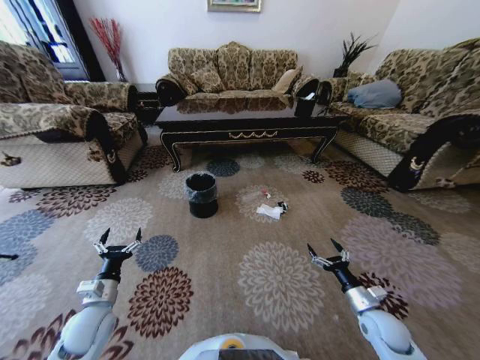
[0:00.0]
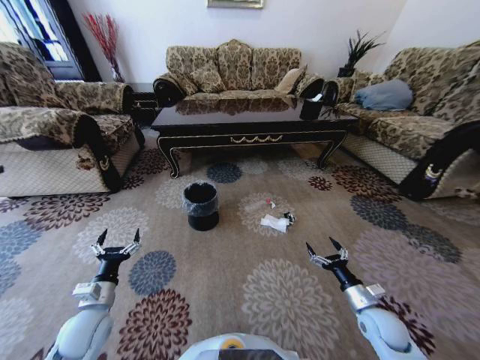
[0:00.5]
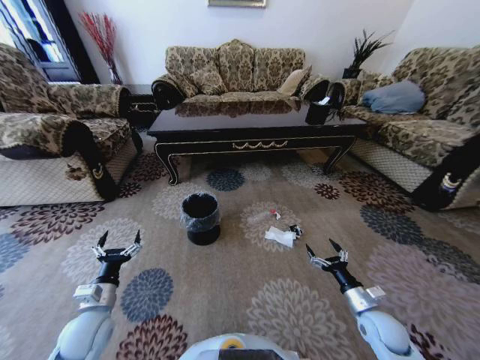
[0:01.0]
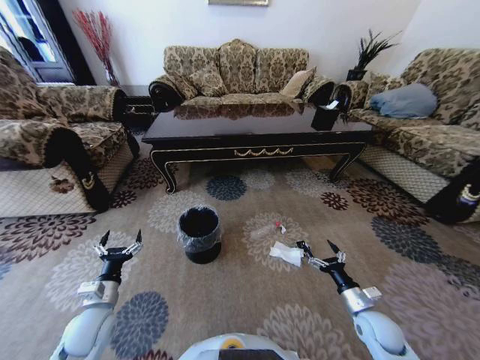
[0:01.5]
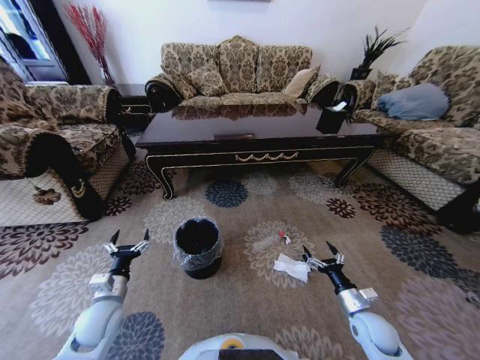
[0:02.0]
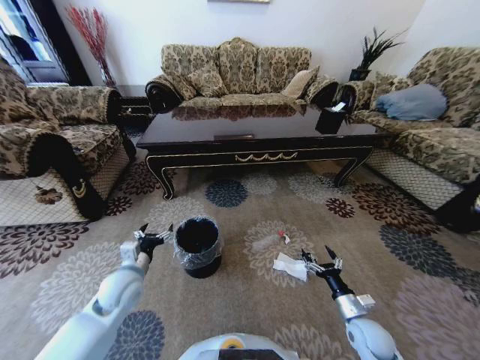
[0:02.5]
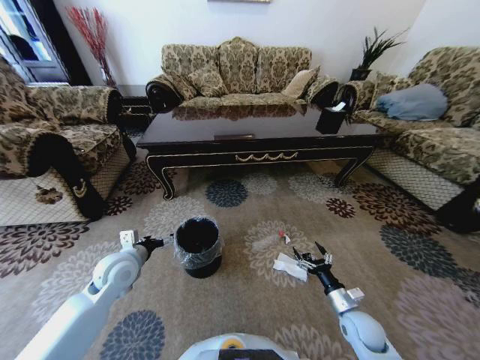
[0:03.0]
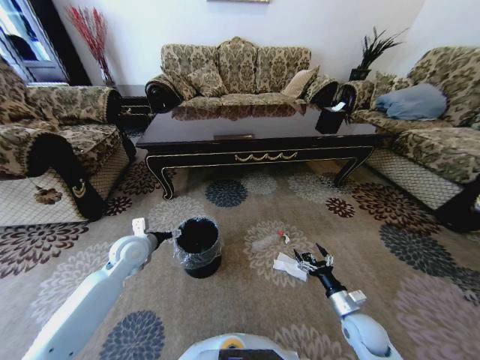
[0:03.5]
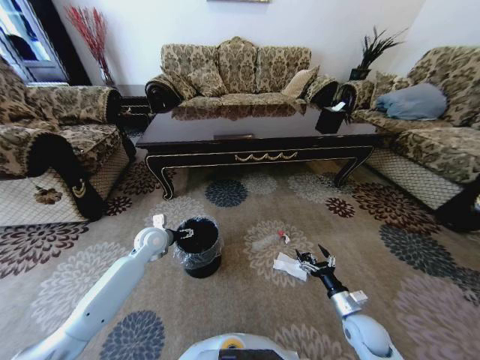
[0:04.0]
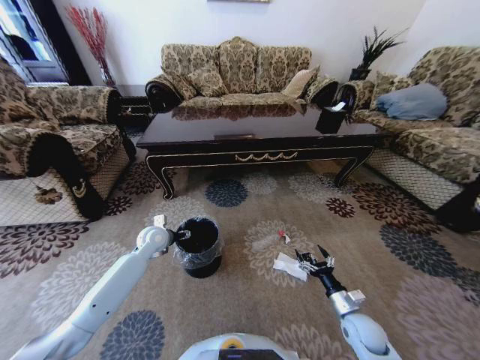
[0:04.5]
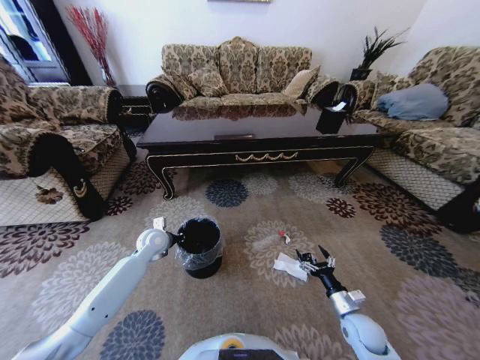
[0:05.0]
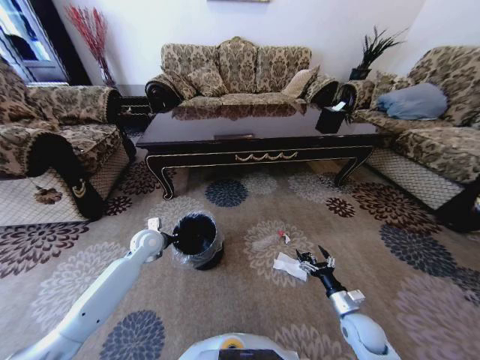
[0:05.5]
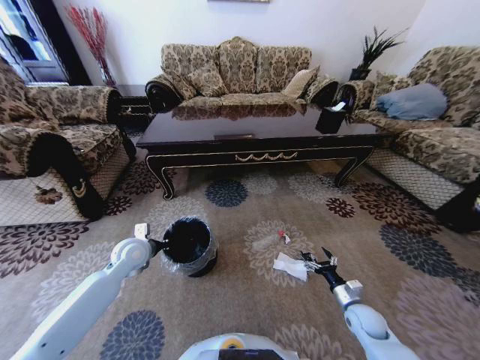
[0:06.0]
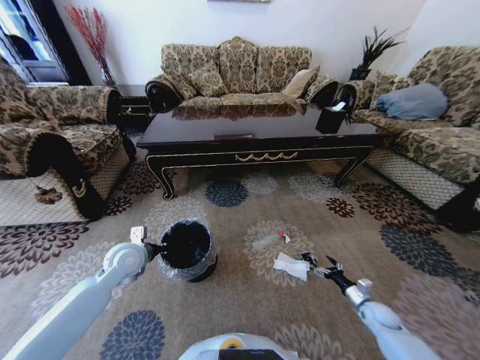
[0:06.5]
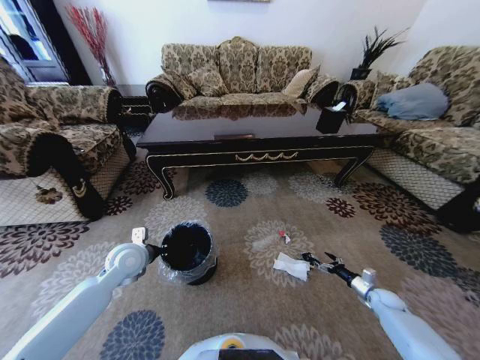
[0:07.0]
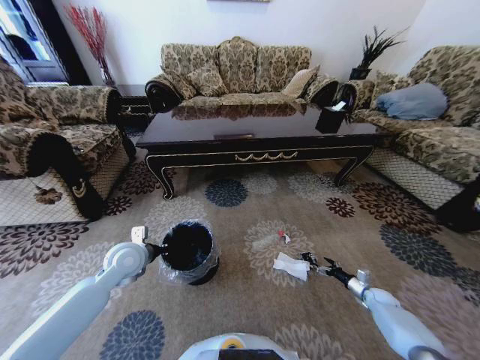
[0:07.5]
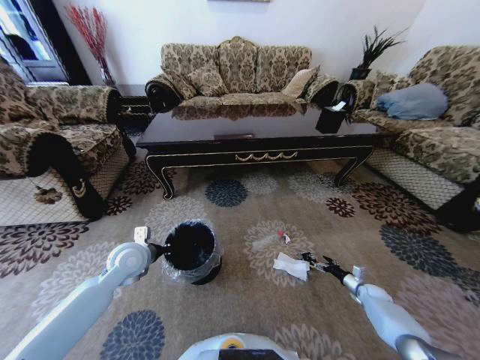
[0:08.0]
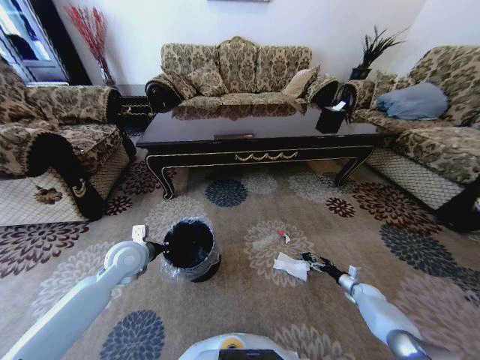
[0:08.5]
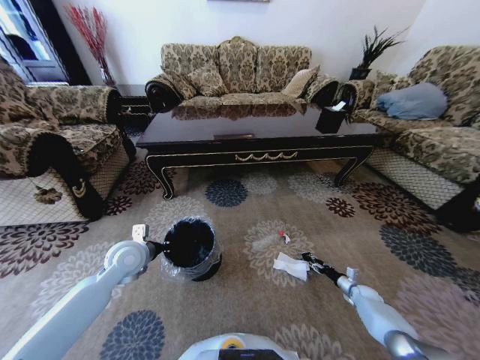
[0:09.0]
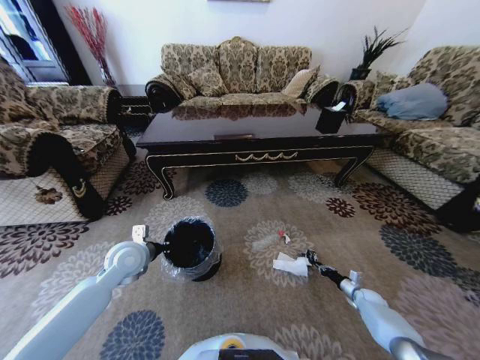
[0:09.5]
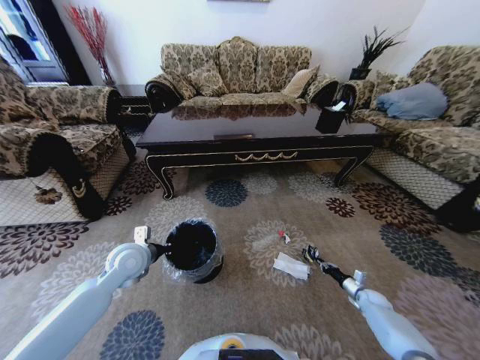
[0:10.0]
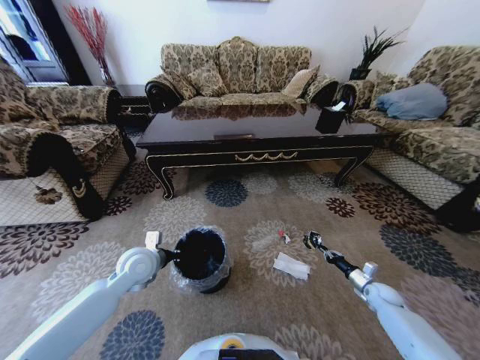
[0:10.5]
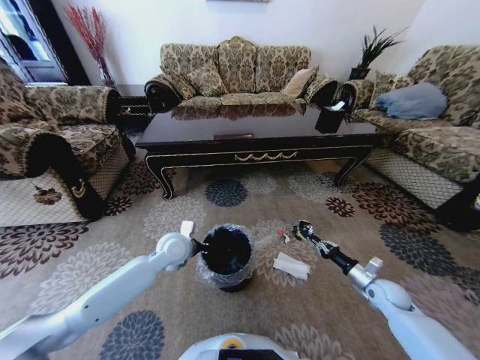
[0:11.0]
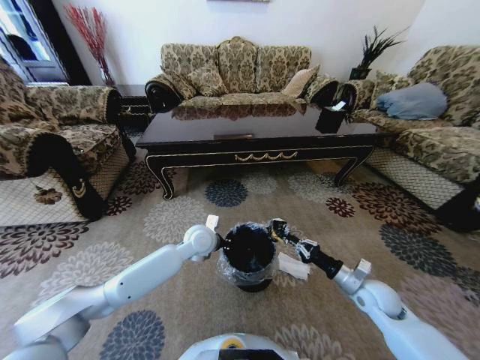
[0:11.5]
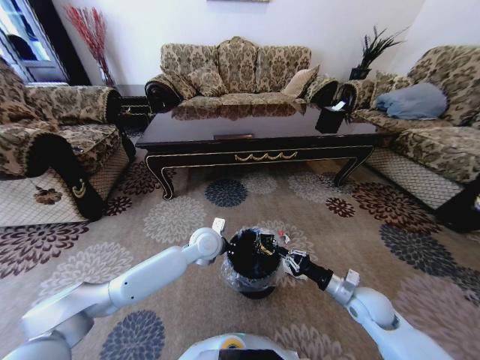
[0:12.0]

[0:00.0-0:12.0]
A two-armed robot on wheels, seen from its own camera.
Task of the whole recording: Move to the front of the table and pick up the trash from the floor, then place it into the trash bin.
0:02.0 to 0:04.0: The left gripper moves forward, about 20 cm.
0:04.0 to 0:06.0: The right gripper shifts by some 5 cm; the left gripper is displaced backward by some 5 cm, and closes up.
0:06.0 to 0:08.0: The right gripper travels to the right, forward and downward by roughly 20 cm.
0:08.0 to 0:10.0: The right gripper closes.
0:10.0 to 0:12.0: The left gripper moves to the right, roughly 20 cm. The right gripper shifts roughly 25 cm upward and to the left.

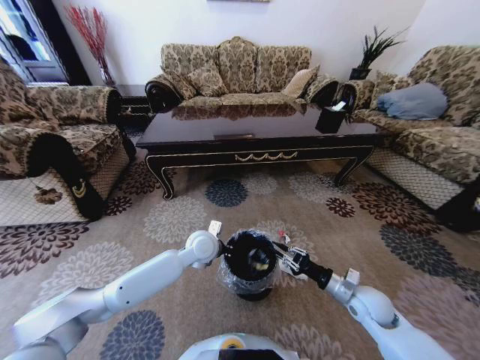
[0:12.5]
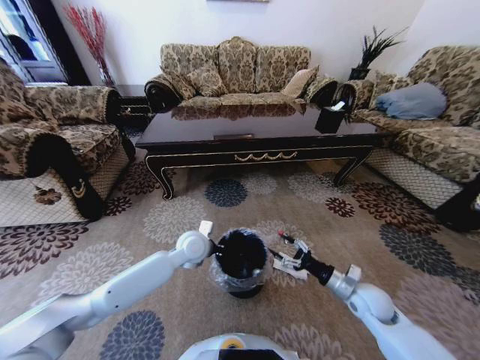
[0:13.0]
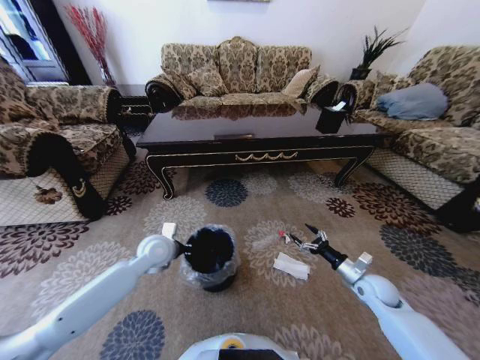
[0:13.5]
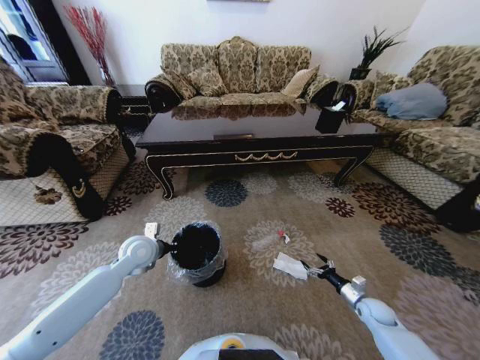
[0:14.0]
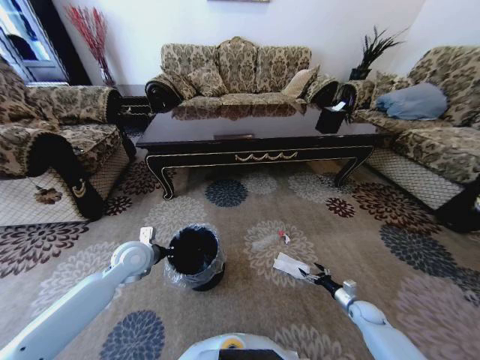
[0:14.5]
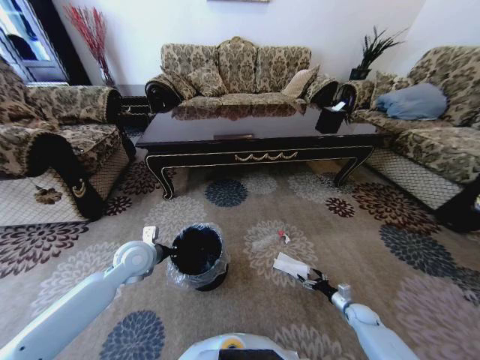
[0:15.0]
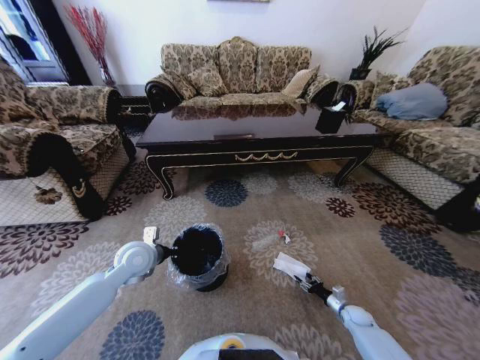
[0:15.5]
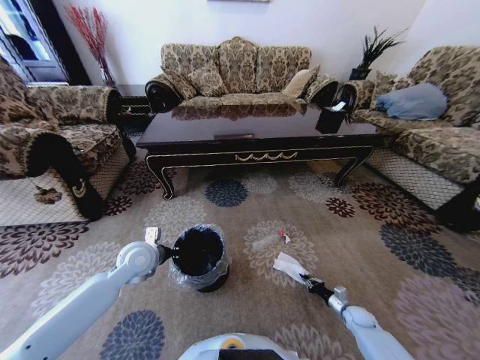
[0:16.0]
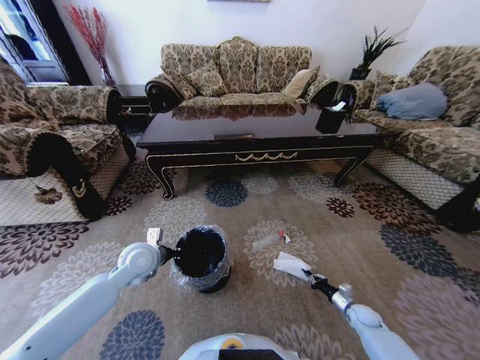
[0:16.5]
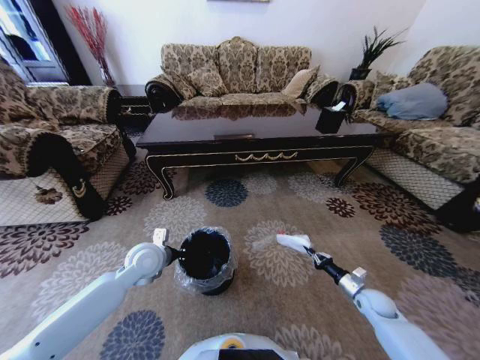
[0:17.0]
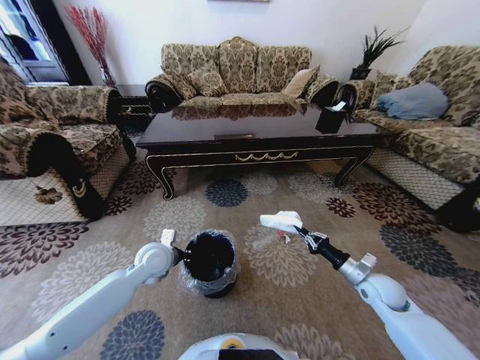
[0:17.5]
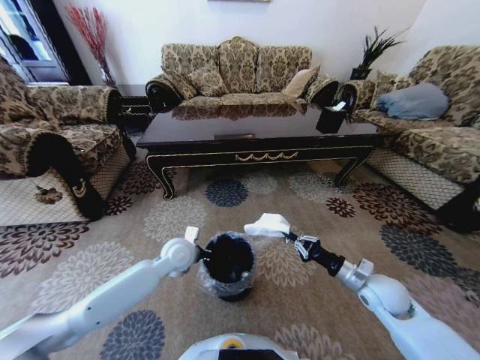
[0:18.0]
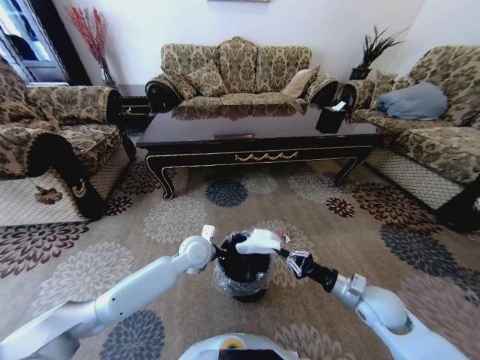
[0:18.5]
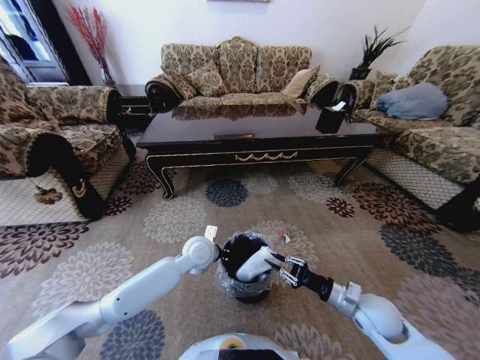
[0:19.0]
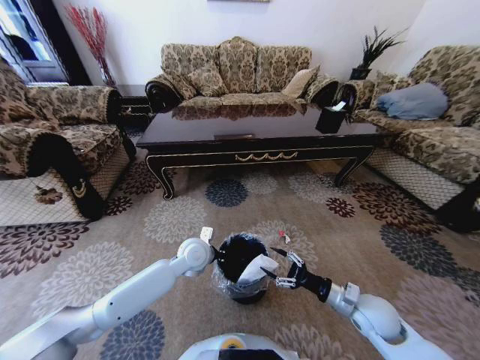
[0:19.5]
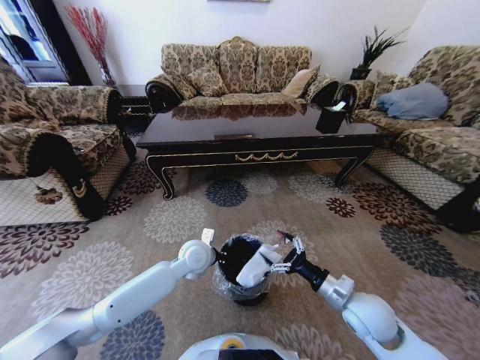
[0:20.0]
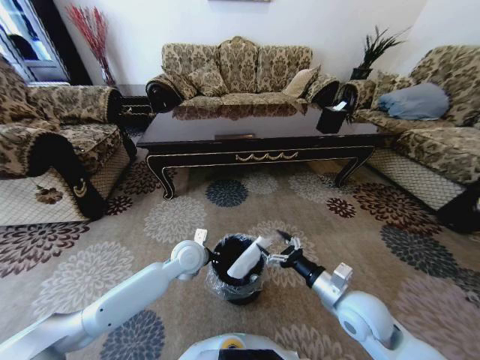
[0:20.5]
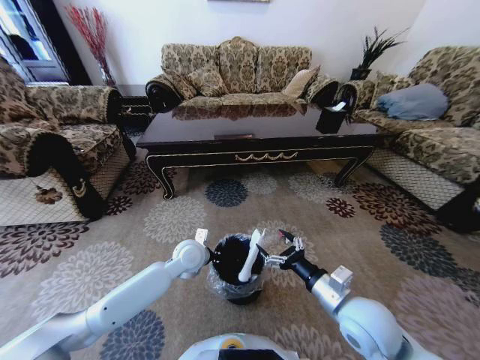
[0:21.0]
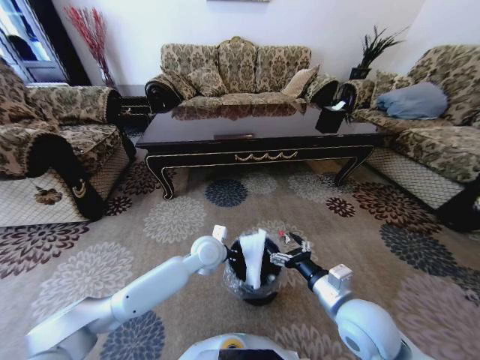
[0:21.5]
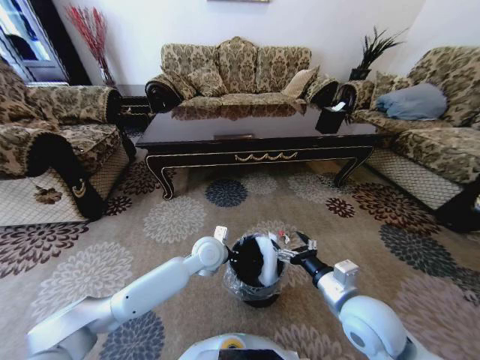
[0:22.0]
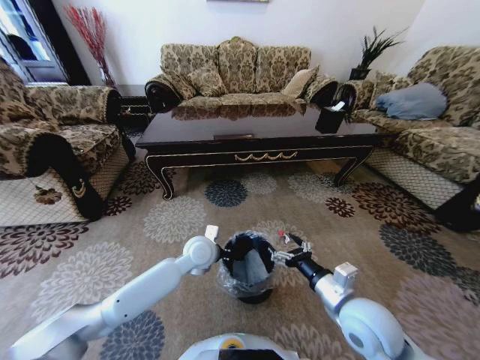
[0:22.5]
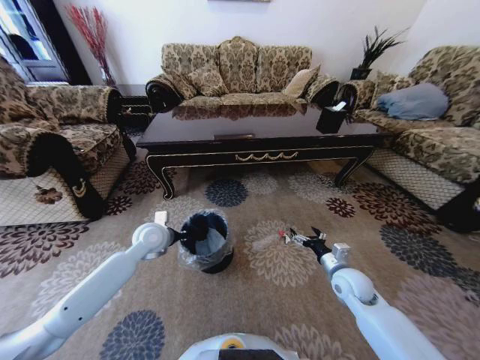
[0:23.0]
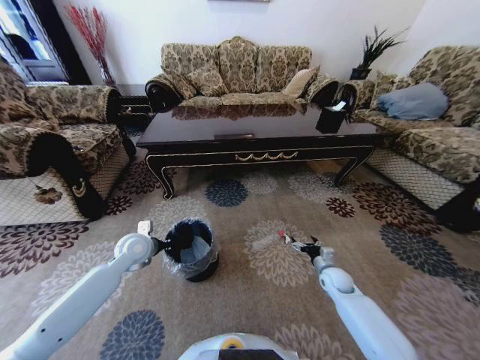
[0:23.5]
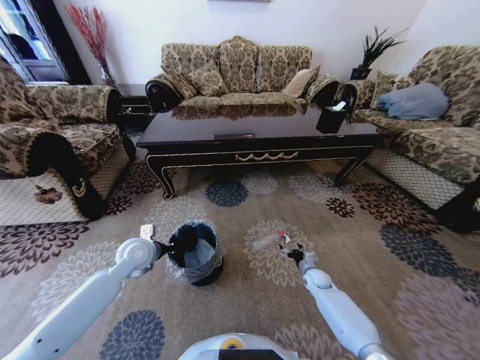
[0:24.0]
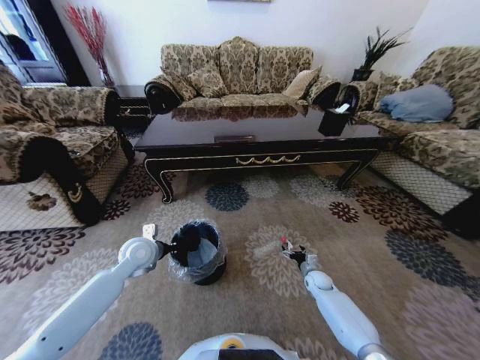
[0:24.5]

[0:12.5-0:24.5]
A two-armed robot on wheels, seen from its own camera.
Task of the whole recording: Move to the front of the table and pick up the trash from the floor, then place it into the trash bin.
0:12.5 to 0:14.5: The left gripper shifts roughly 20 cm to the left, while the right gripper moves downward and to the right, roughly 25 cm, and opens.
0:14.5 to 0:16.5: The right gripper closes up.
0:16.5 to 0:18.5: The left gripper travels to the right by approximately 15 cm. The right gripper goes some 25 cm upward and to the left.
0:18.5 to 0:20.5: The right gripper is displaced to the left and upward by about 10 cm, and opens.
0:22.5 to 0:24.5: The right gripper moves downward and forward, approximately 35 cm; the left gripper shifts approximately 15 cm to the left.

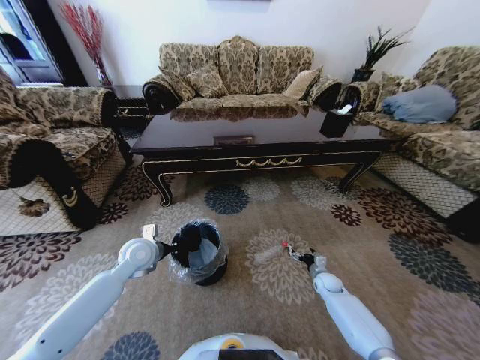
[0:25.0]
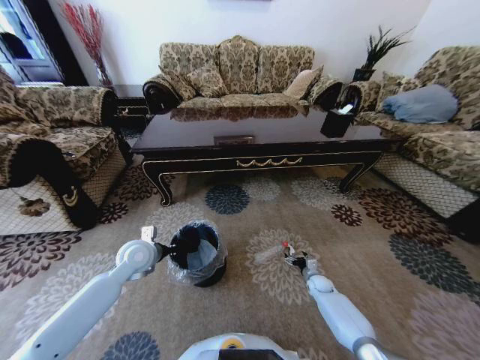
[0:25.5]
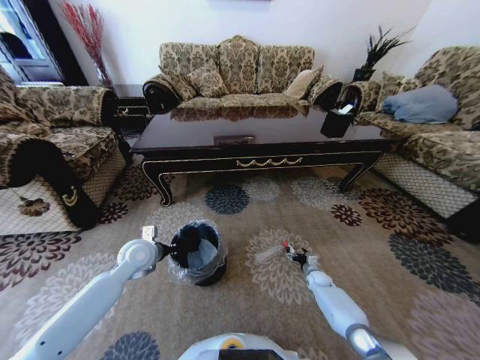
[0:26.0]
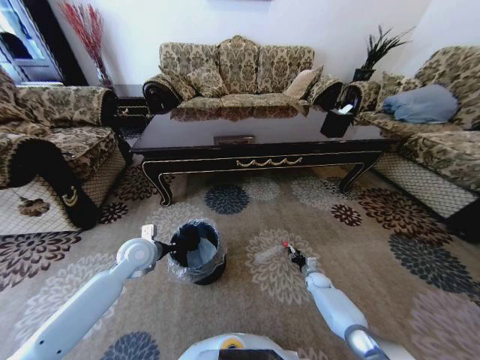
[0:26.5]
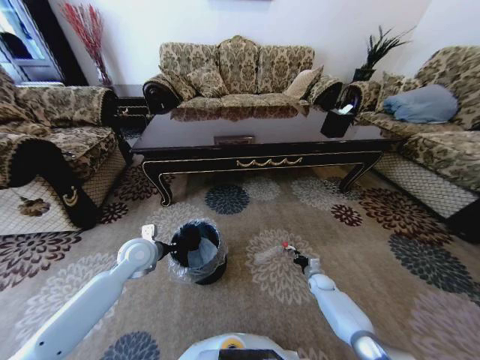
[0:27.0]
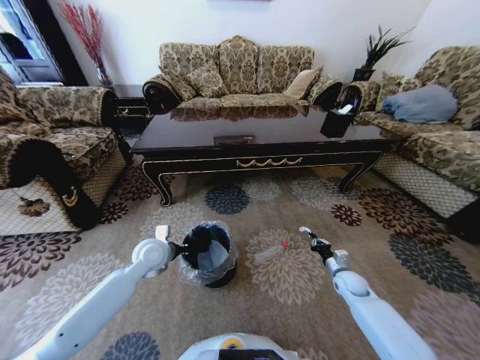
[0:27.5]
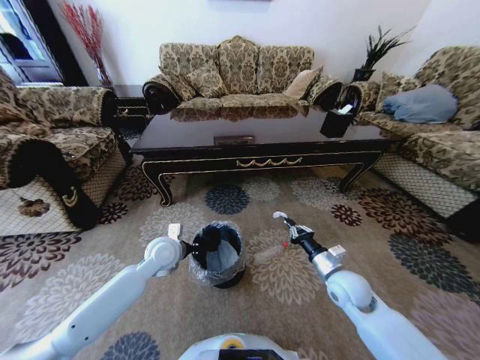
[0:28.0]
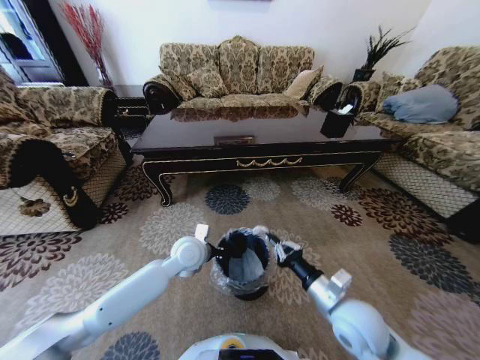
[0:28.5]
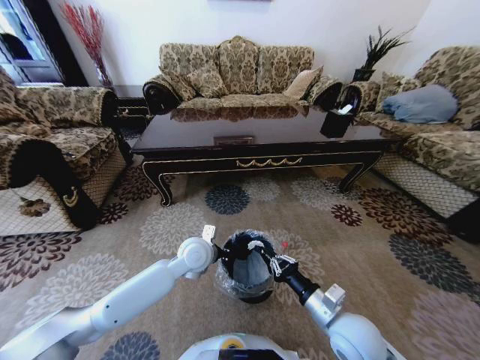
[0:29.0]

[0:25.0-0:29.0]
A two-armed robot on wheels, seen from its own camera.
Task of the whole recording: Move to the front of the table and pick up the trash from the floor, then place it into the trash bin.
0:25.0 to 0:27.0: The right gripper closes.
0:27.0 to 0:29.0: The right gripper travels upward, backward and to the left by about 40 cm. Meanwhile the left gripper is displaced to the right by roughly 15 cm.
